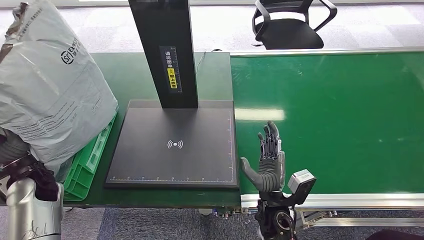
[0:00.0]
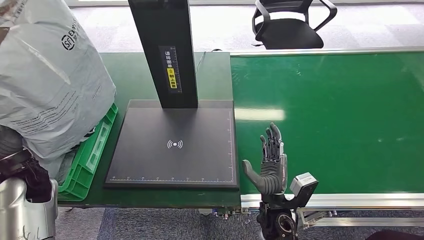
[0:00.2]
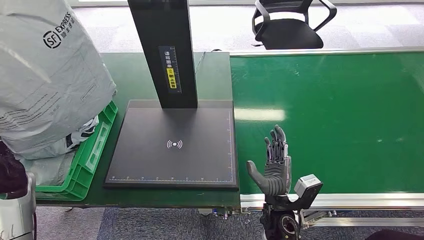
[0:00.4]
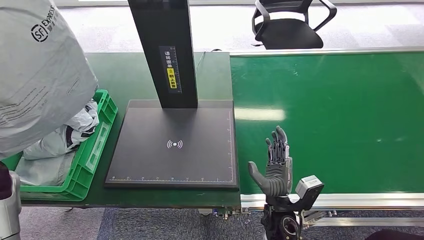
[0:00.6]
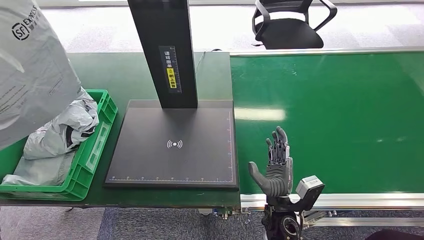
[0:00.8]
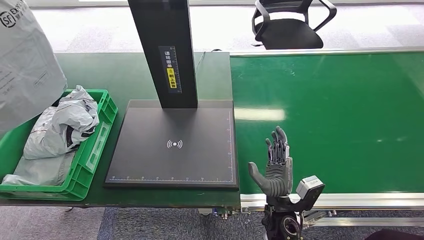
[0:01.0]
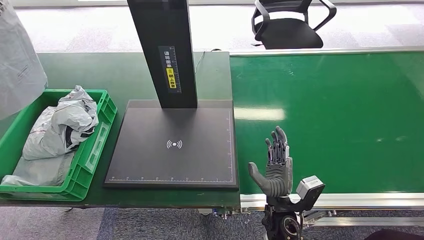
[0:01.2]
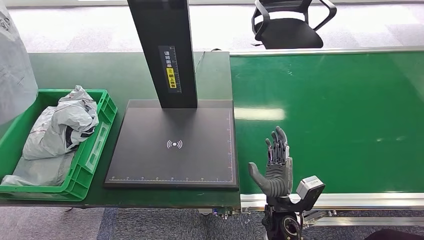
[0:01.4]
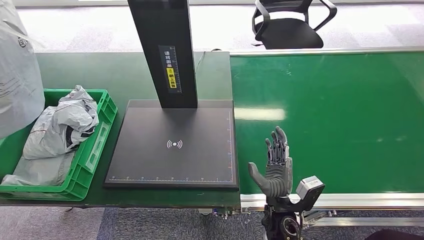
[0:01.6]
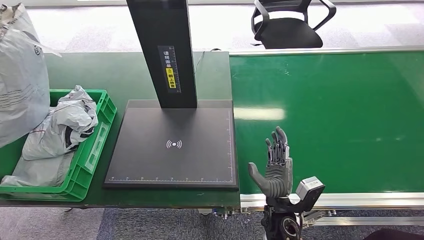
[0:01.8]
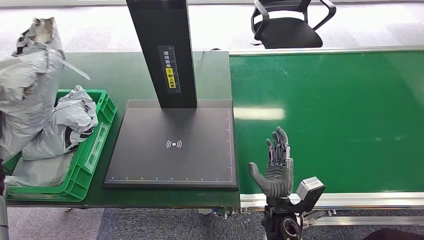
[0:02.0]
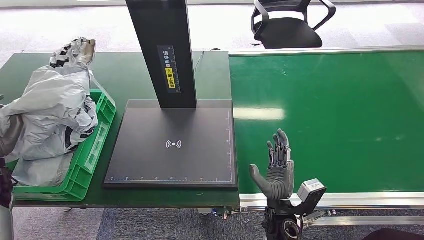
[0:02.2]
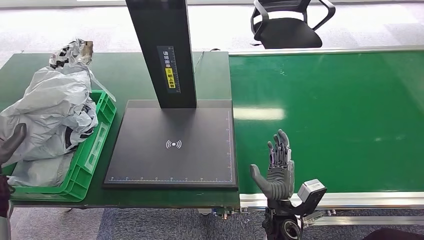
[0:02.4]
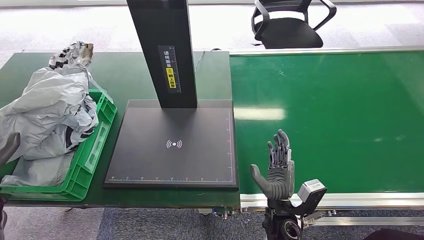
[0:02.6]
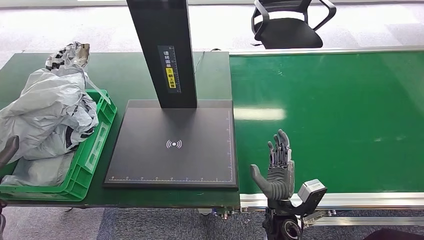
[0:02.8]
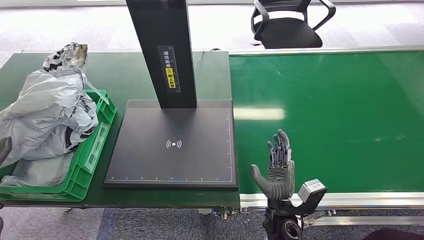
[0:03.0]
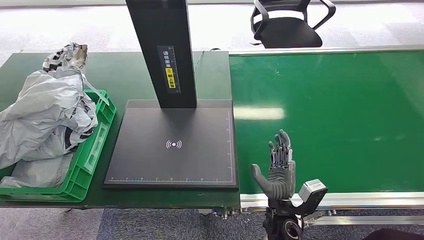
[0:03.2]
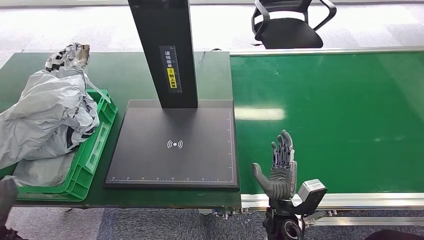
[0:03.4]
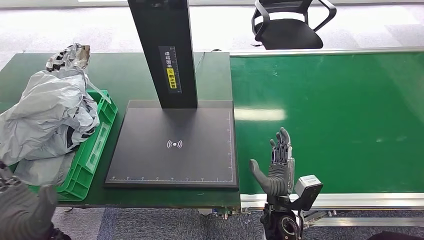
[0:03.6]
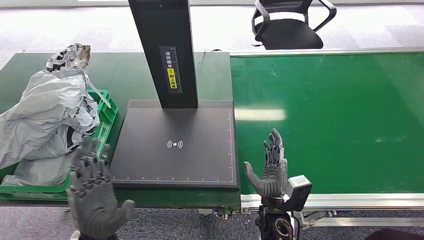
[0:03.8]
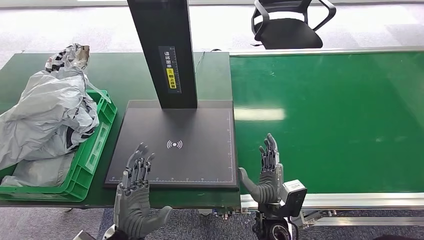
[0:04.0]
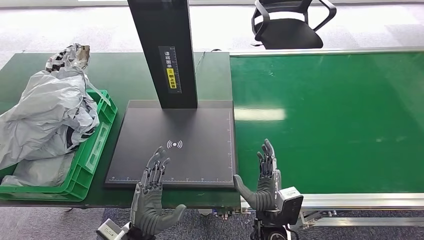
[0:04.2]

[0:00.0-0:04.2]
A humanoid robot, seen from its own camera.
Step, 0:00.0 to 0:04.2: Place the package into the parcel locker.
0:00.0 to 0:01.4: The left hand moves to the left and upward, about 20 cm.
0:01.4 to 0:02.8: The left hand shifts approximately 15 cm downward, to the right and backward.
0:02.8 to 0:04.2: The left hand shifts roughly 35 cm to the right.
